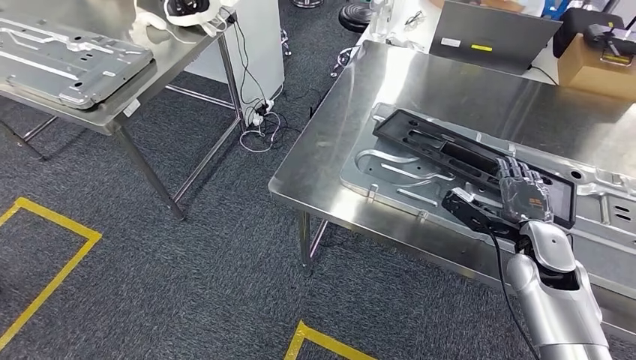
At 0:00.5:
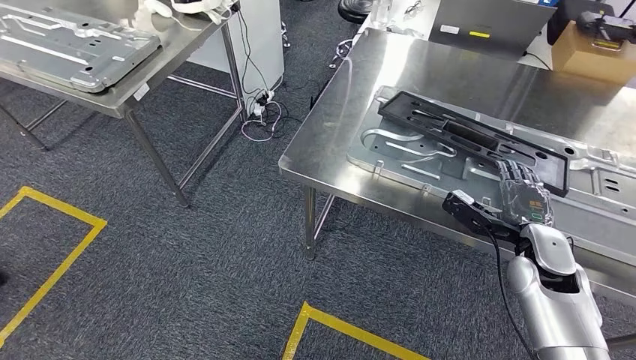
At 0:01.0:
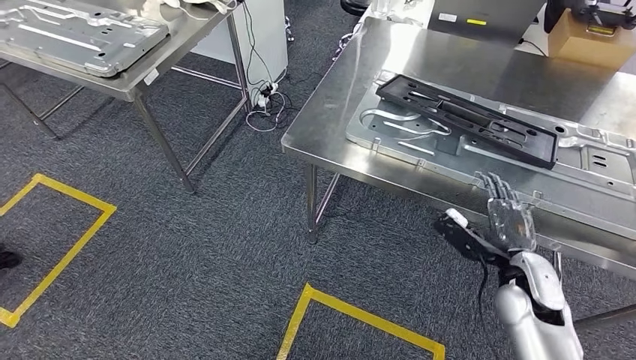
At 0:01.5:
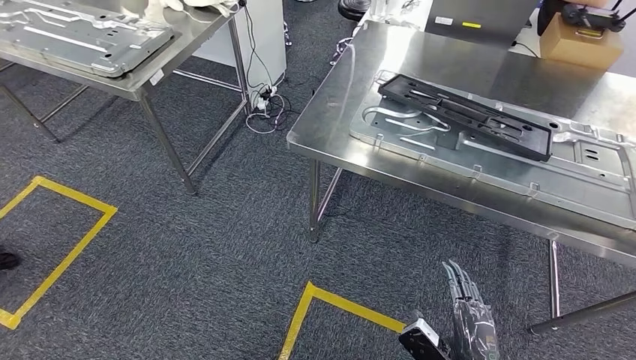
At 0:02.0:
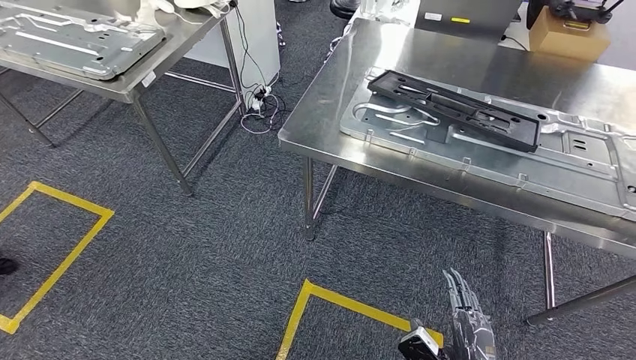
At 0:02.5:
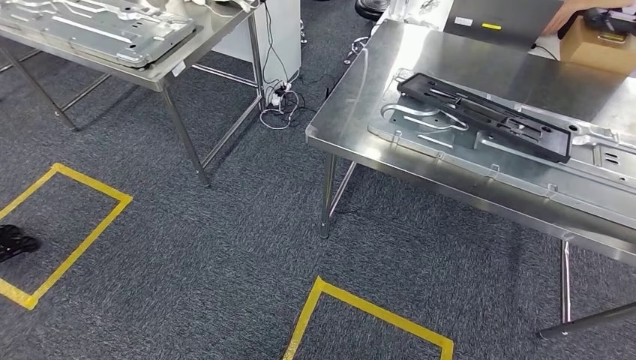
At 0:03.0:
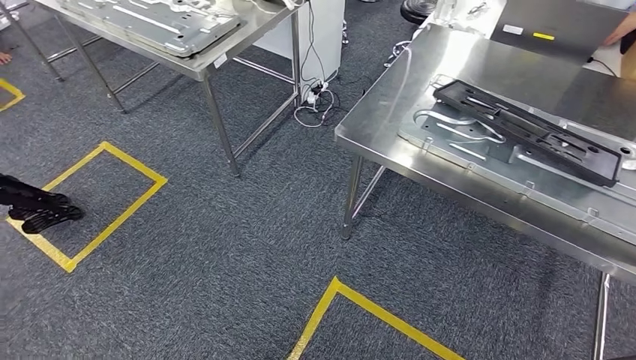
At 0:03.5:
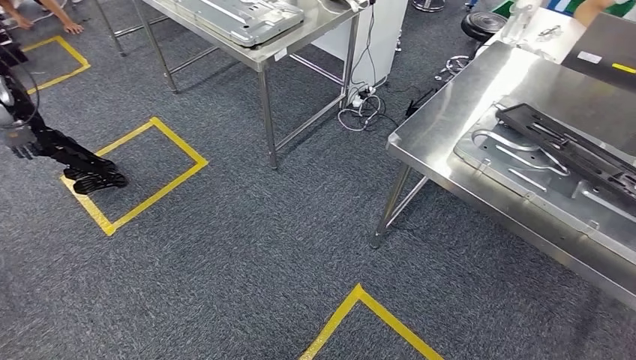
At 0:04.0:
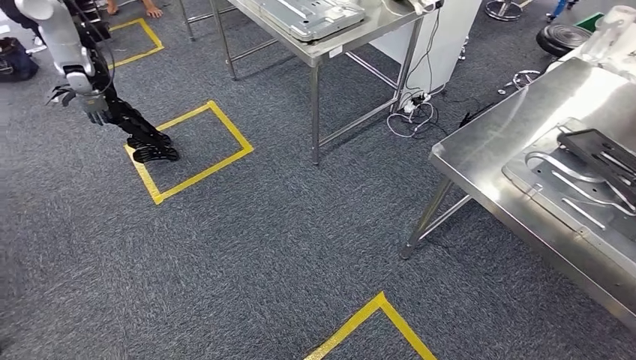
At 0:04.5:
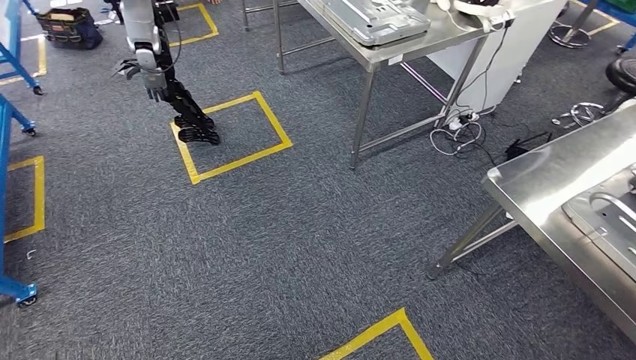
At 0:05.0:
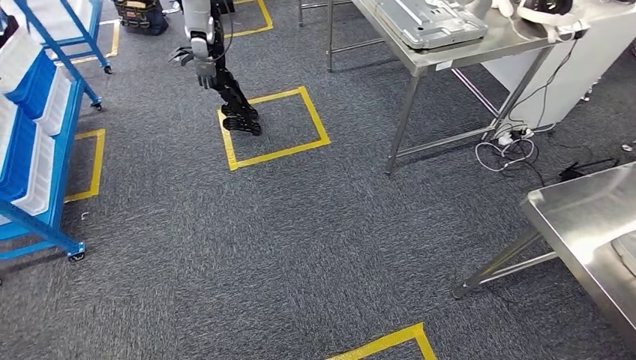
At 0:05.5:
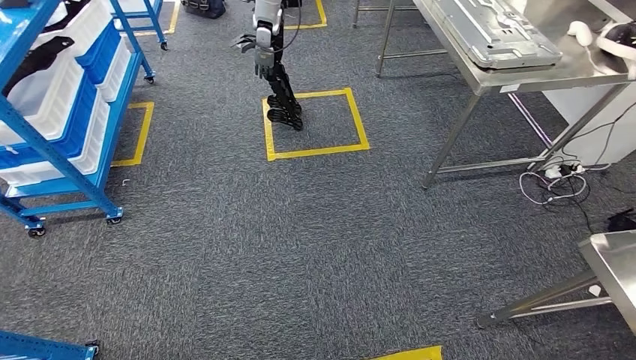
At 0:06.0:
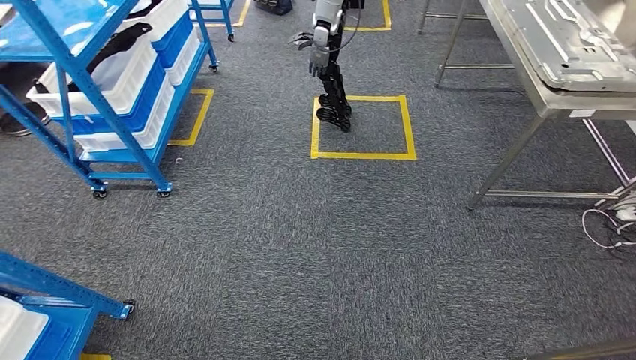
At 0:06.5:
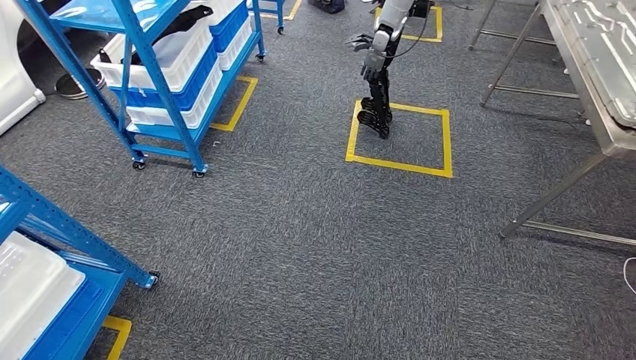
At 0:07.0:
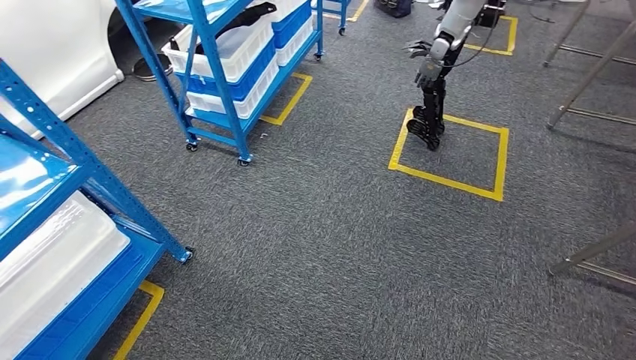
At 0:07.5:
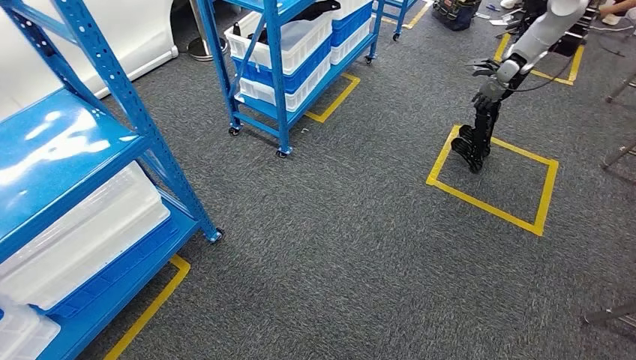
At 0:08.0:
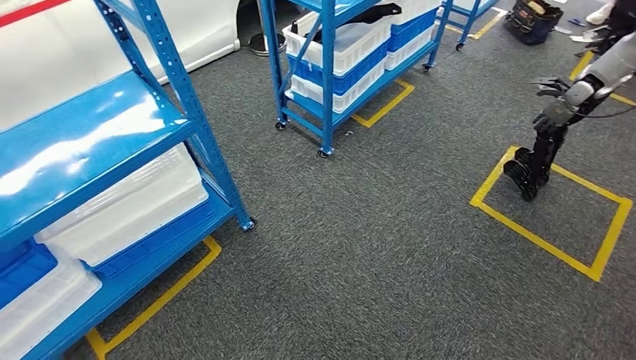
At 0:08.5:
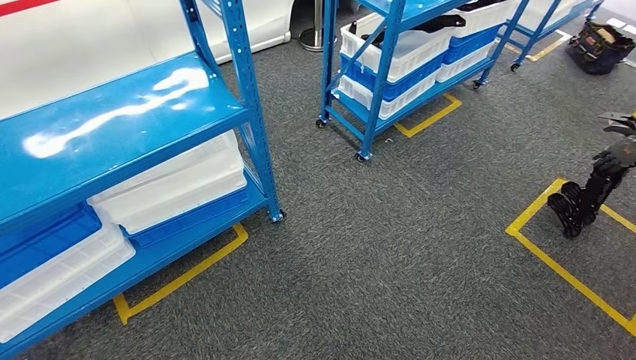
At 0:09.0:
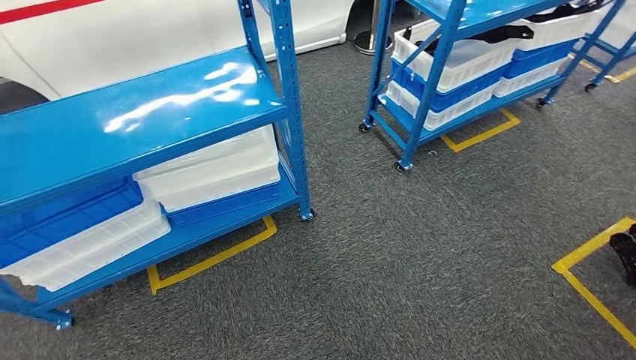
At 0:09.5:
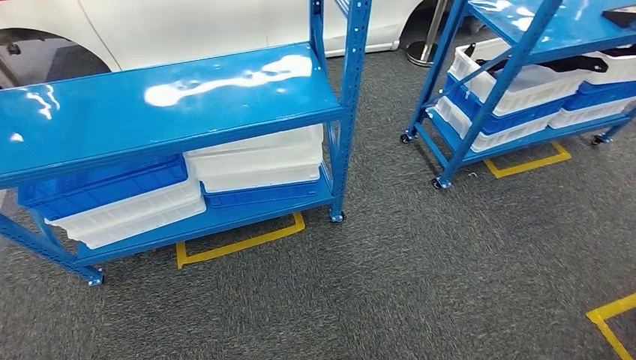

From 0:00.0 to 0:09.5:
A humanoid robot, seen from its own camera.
Step, from 0:00.0 to 0:02.0: Insert the large material into the corresponding slot on the workbench.

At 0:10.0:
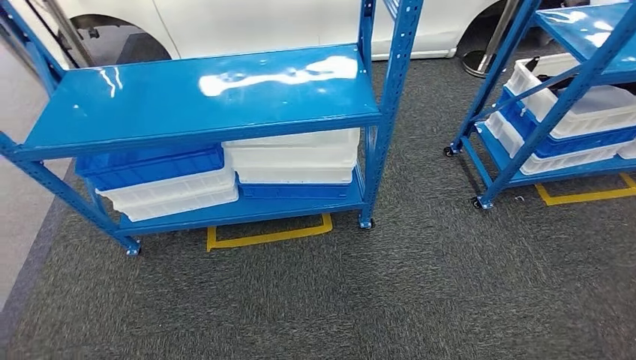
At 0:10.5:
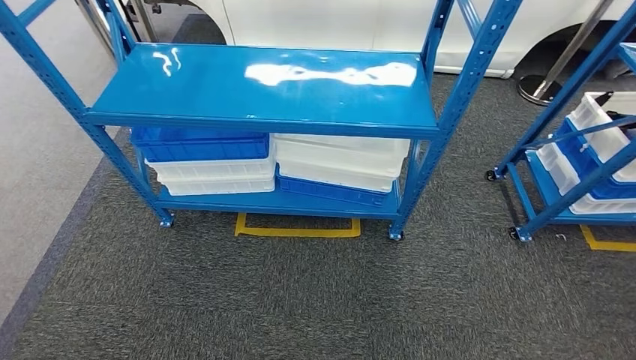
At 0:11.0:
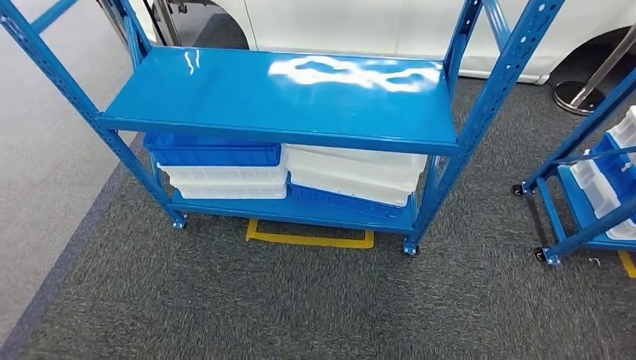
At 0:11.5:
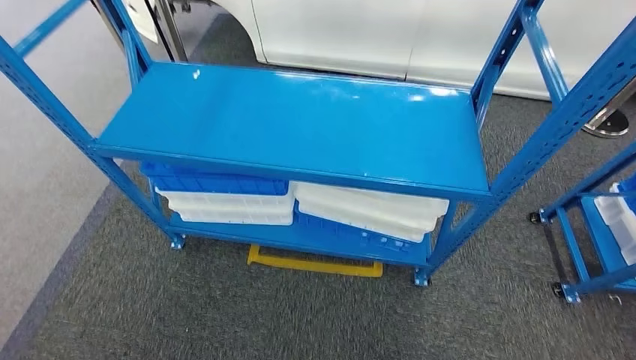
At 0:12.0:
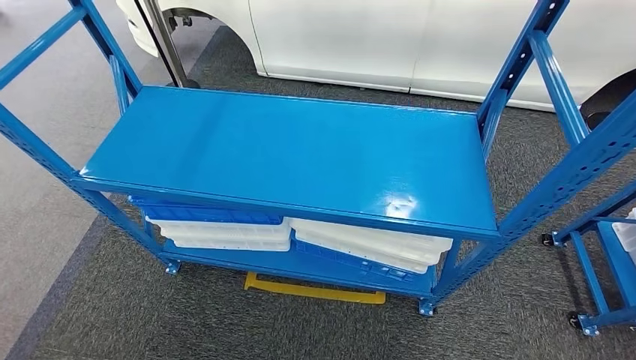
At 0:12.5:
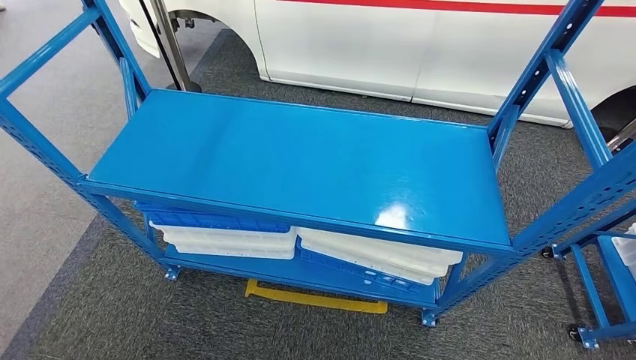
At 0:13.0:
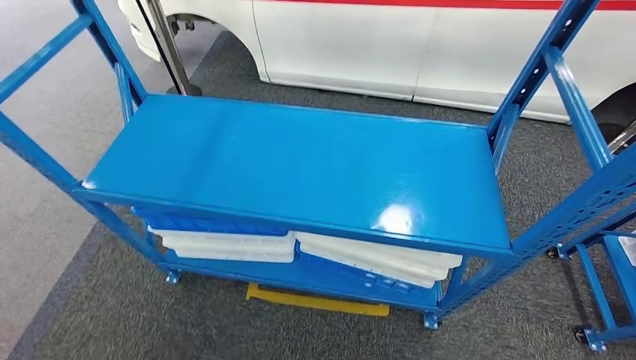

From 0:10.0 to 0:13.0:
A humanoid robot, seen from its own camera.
Step, from 0:10.0 to 0:13.0: Move to the initial position of the shelf.
